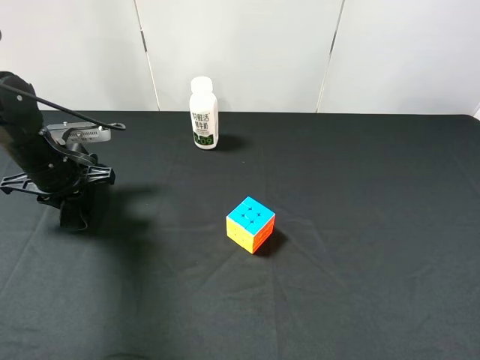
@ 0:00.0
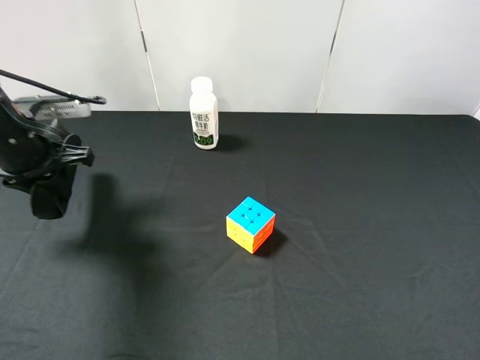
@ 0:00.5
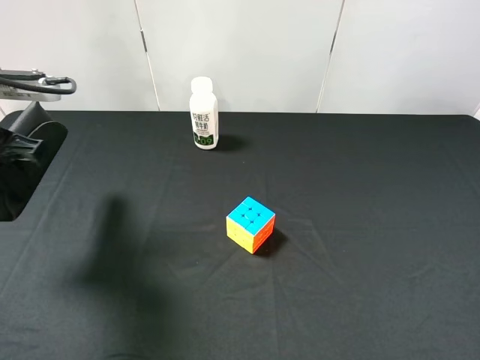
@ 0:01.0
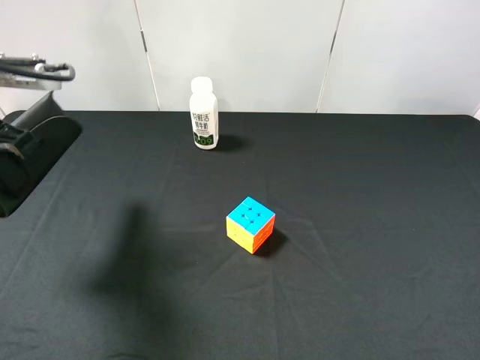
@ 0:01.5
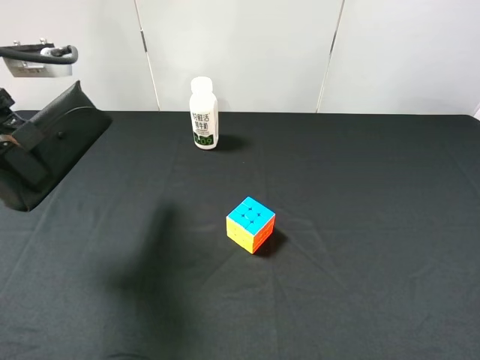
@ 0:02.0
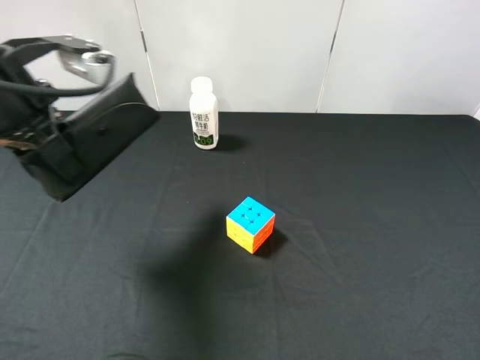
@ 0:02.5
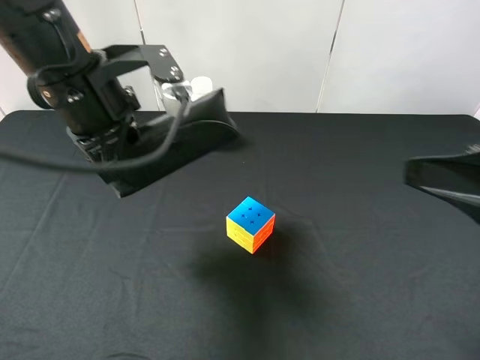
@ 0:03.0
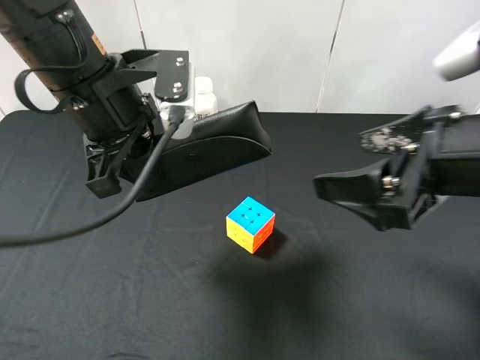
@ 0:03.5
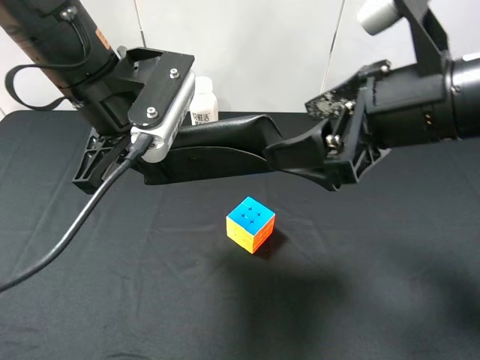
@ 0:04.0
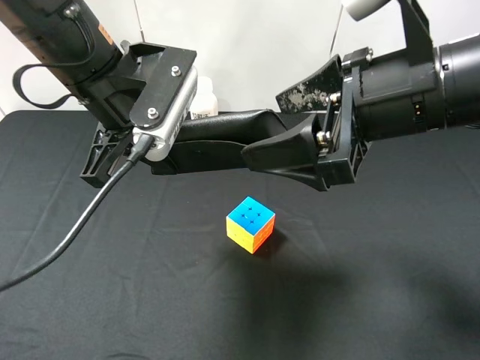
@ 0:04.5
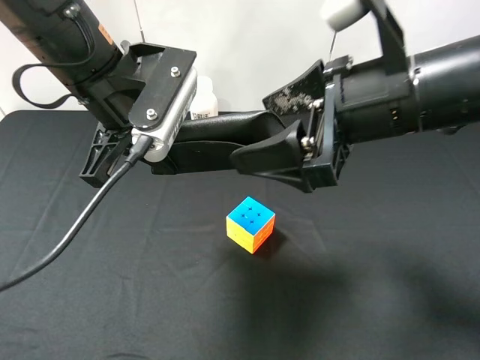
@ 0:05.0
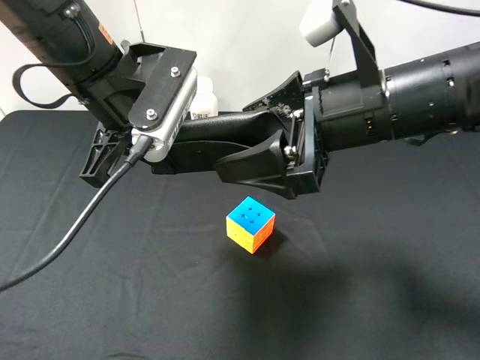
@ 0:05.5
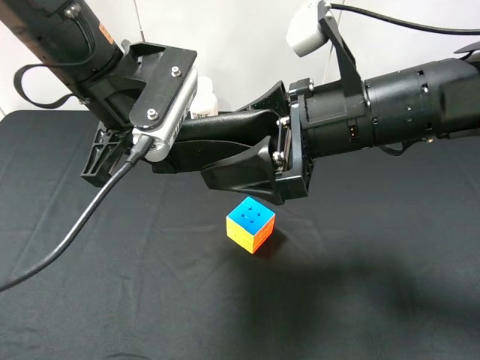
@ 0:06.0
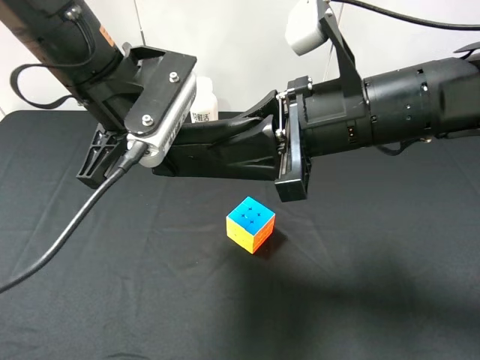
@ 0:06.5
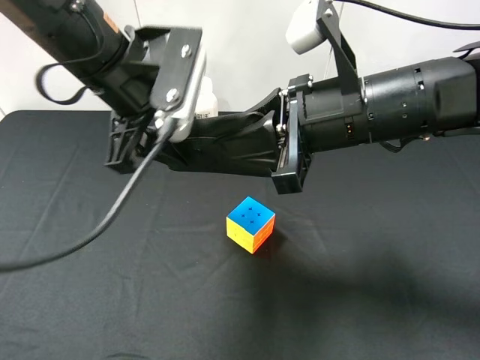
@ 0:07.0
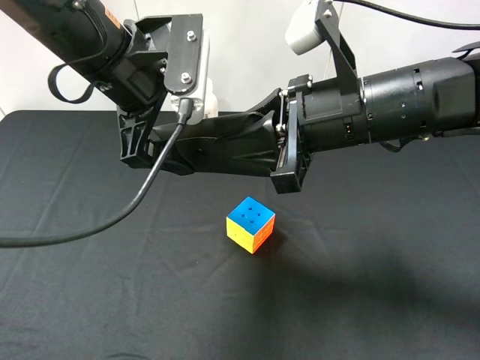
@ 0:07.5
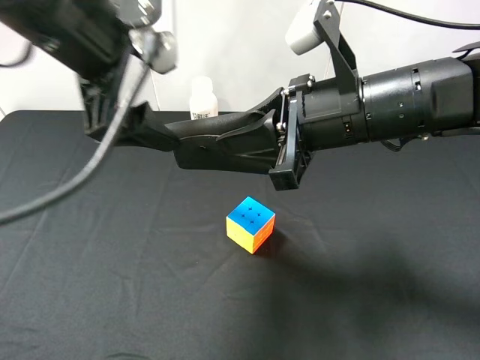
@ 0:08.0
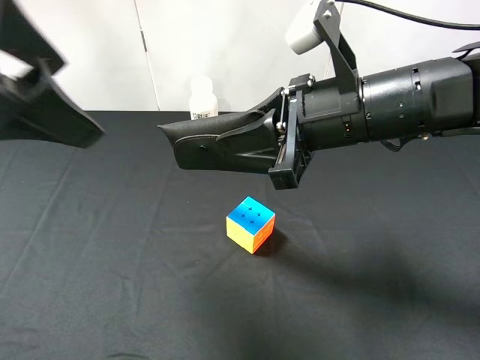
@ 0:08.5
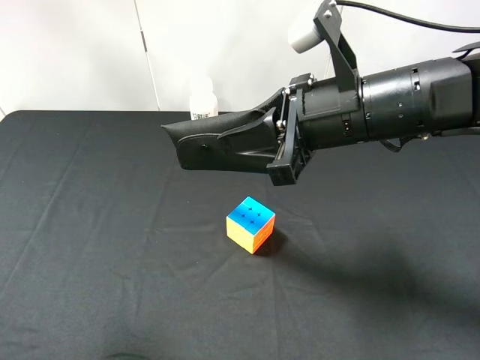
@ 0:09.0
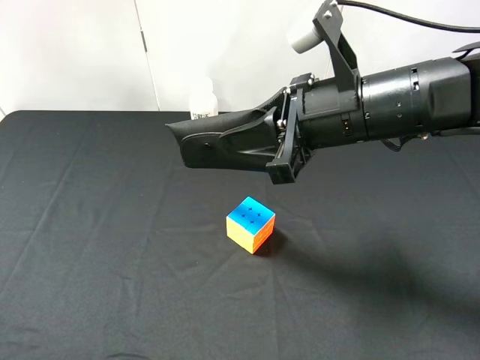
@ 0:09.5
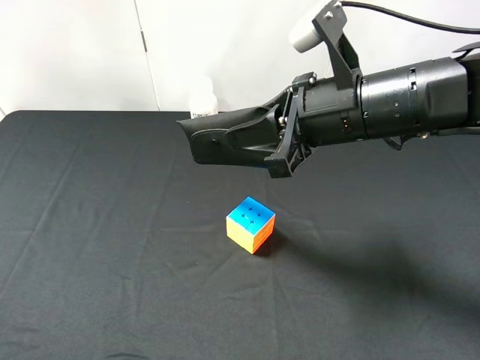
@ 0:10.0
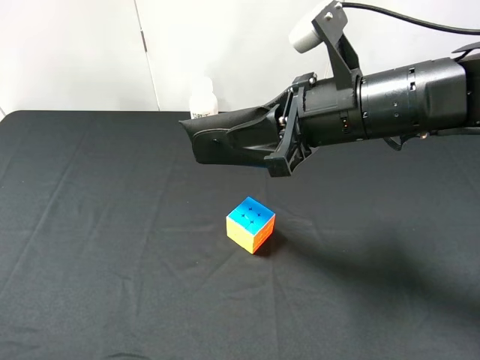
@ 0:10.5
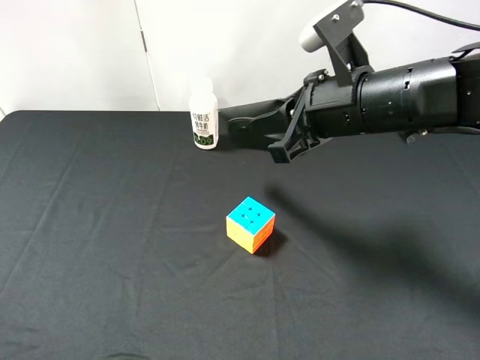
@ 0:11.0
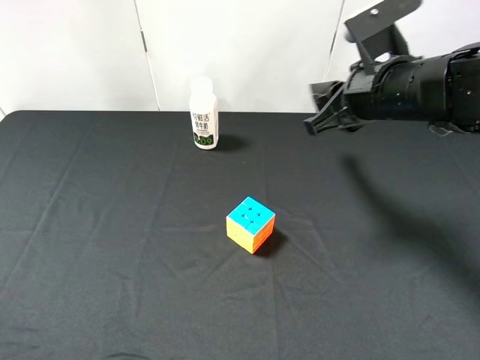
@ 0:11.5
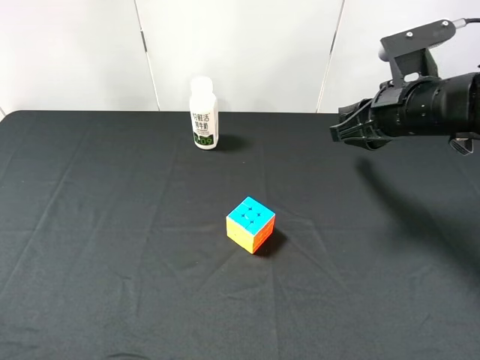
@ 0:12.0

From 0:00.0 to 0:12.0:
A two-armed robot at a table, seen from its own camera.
Task of the whole recording: use the left gripper to pick up the item and transfer it from the left gripper to the right gripper.
From 0:00.0 to 0:02.0: The left gripper heads upward and backward, covering roughly 15 cm.
From 0:02.0 to 0:04.0: The right gripper heads forward and to the left, covering approximately 25 cm; the left gripper shifts some 15 cm to the right.
From 0:04.0 to 0:06.0: The right gripper shifts by some 5 cm.
From 0:06.0 to 0:08.0: The left gripper shifts about 5 cm upward, and opens. The right gripper closes.
From 0:08.0 to 0:10.0: The left gripper moves backward and to the left, roughly 30 cm.
From 0:10.0 to 0:12.0: The right gripper travels to the right by some 10 cm.

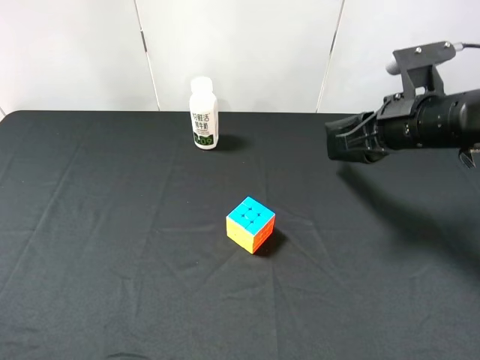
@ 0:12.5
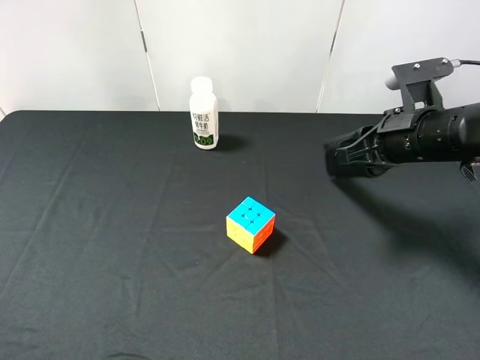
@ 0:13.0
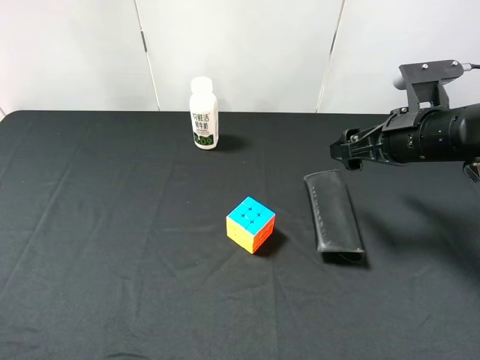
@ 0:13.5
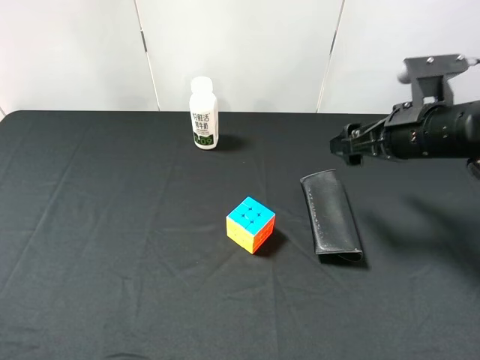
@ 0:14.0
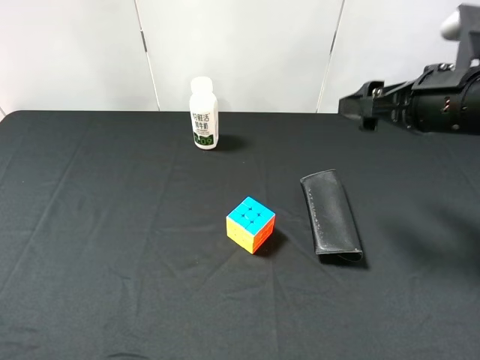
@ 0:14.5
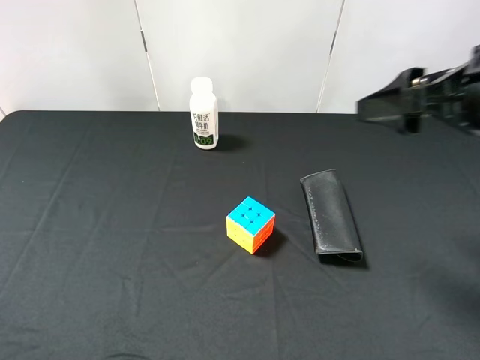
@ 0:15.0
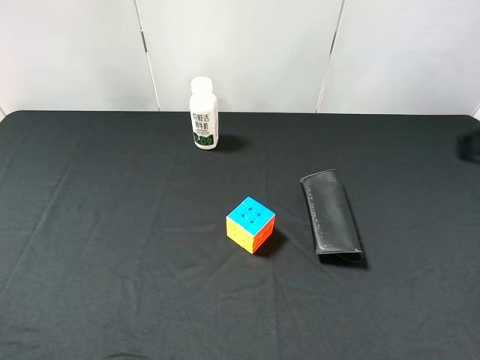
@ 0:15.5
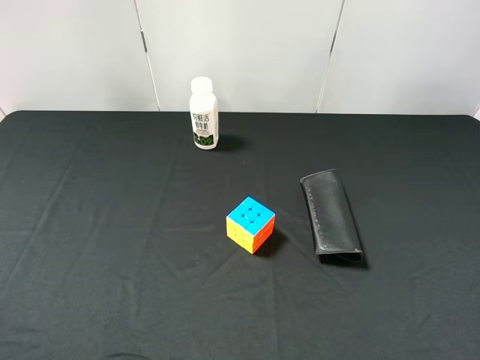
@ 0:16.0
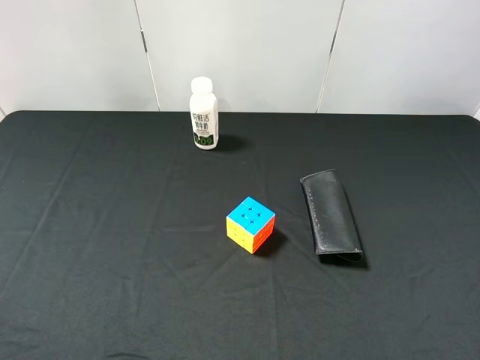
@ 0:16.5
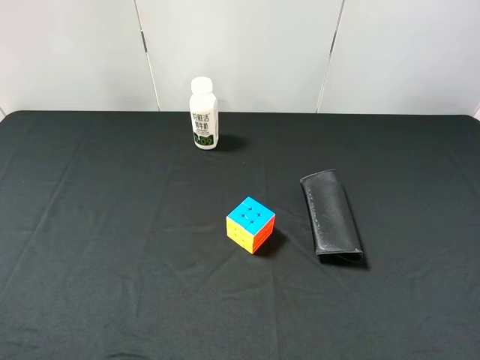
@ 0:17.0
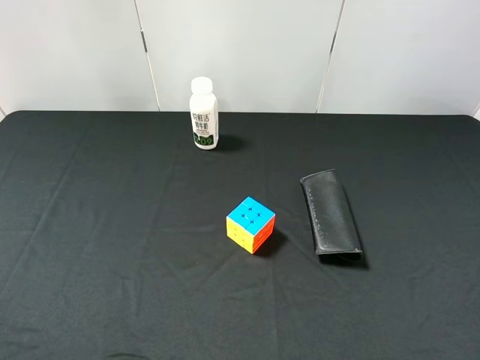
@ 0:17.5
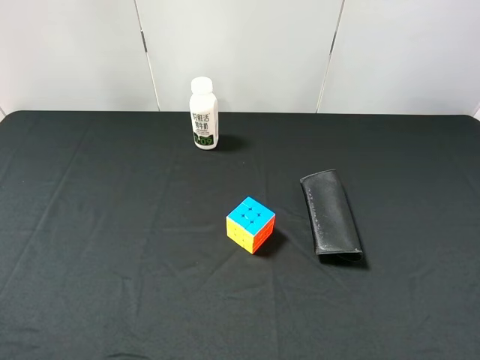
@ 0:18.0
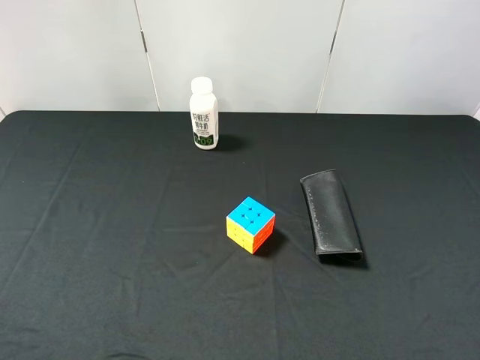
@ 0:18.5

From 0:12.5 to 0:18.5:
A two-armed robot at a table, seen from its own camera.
Task of the whole recording: use the left gripper to pick up the item and transfer it from the left gripper to the right gripper.
From 0:12.5 to 0:14.5: The right gripper travels upward by about 5 cm, and opens up.
From 0:14.5 to 0:16.5: The right gripper is displaced backward by approximately 25 cm.

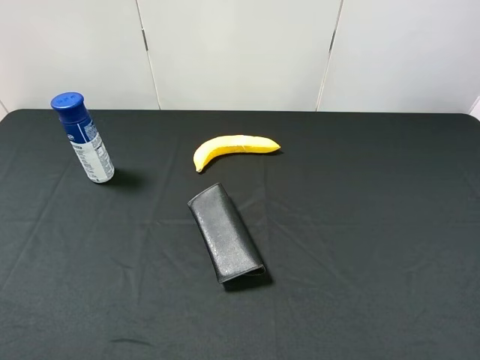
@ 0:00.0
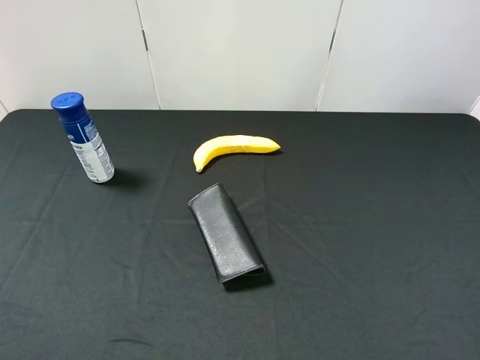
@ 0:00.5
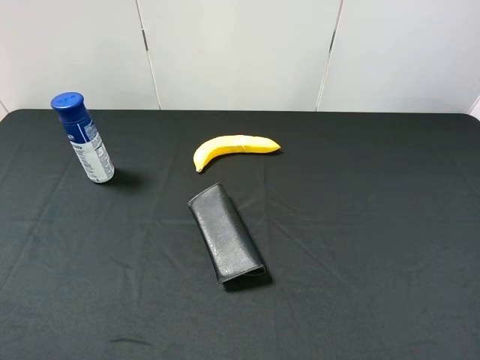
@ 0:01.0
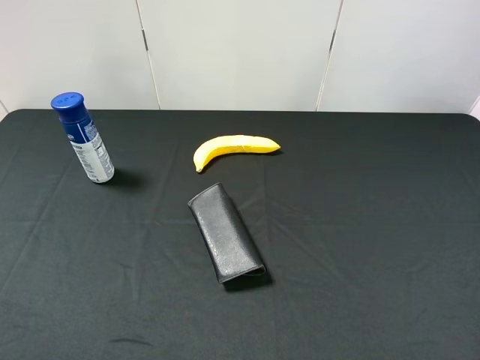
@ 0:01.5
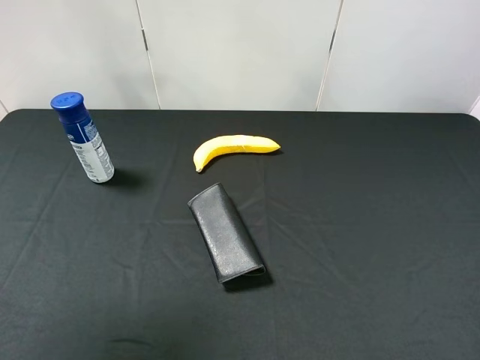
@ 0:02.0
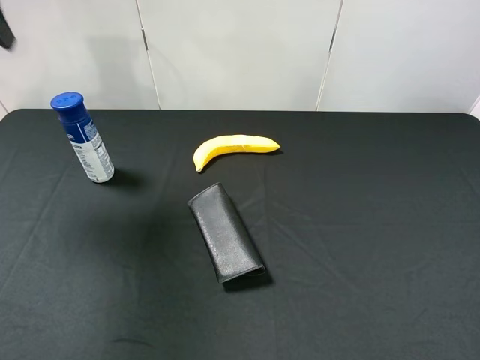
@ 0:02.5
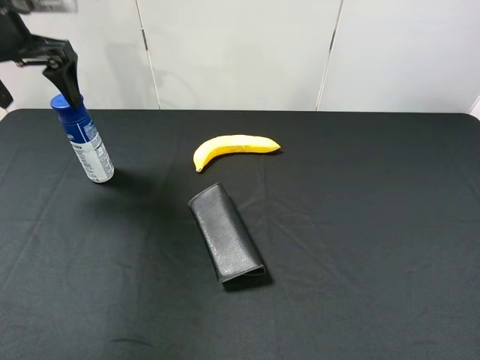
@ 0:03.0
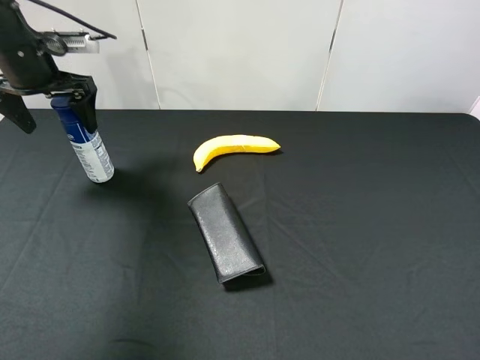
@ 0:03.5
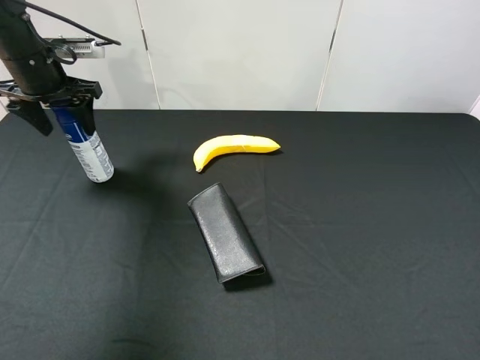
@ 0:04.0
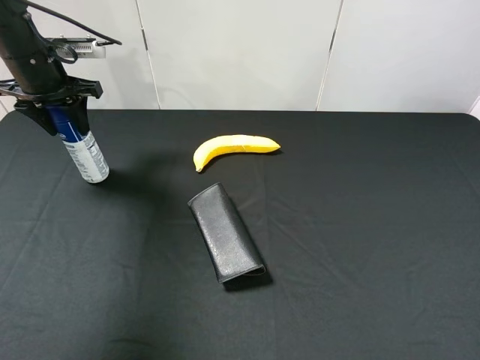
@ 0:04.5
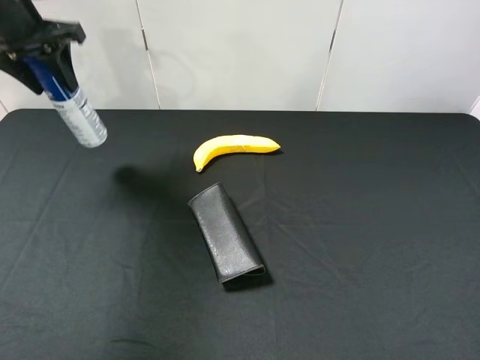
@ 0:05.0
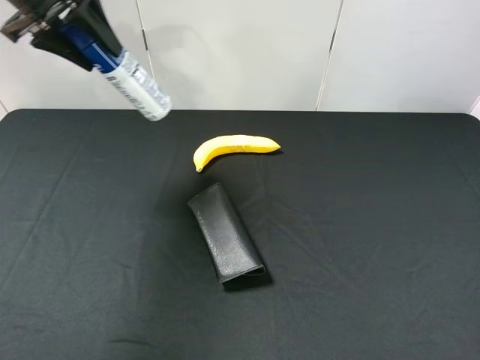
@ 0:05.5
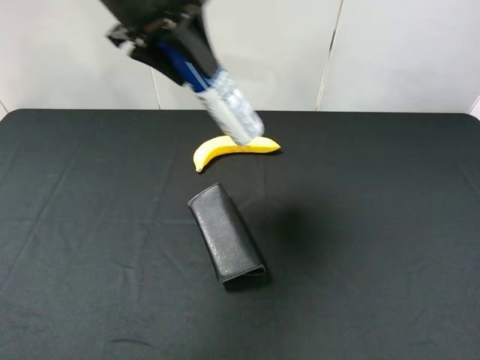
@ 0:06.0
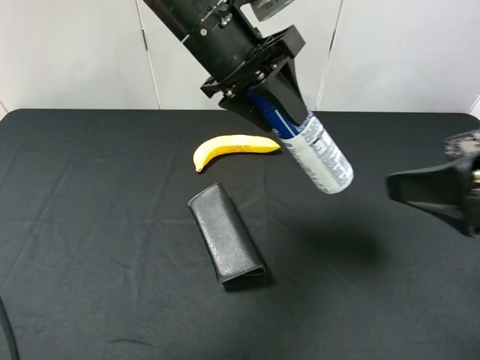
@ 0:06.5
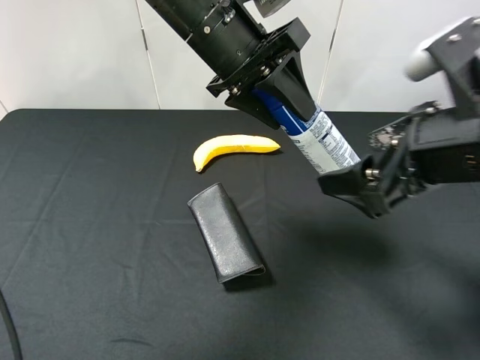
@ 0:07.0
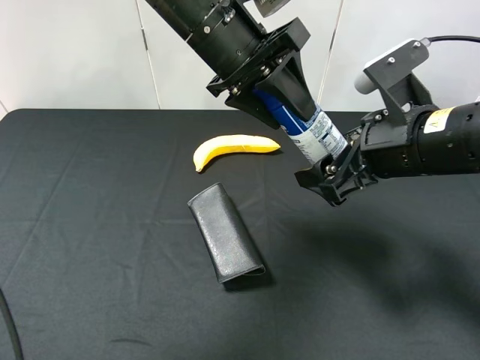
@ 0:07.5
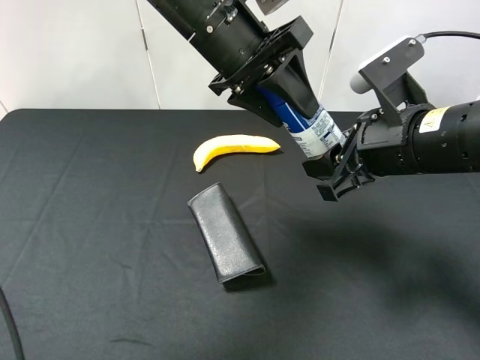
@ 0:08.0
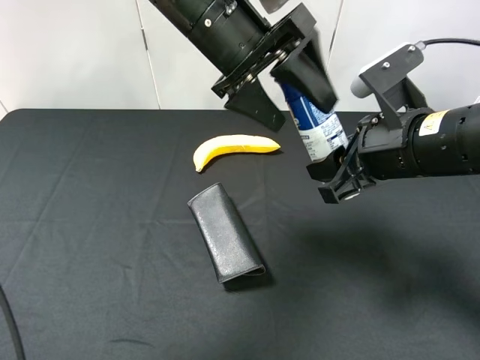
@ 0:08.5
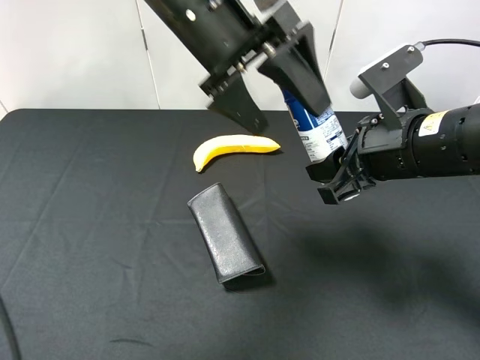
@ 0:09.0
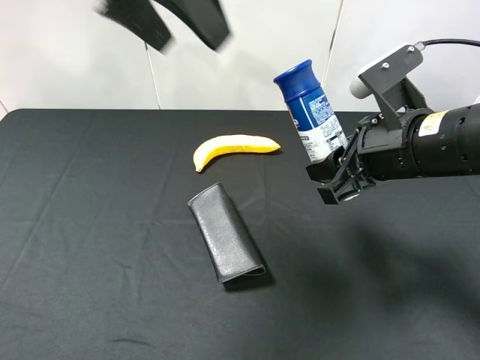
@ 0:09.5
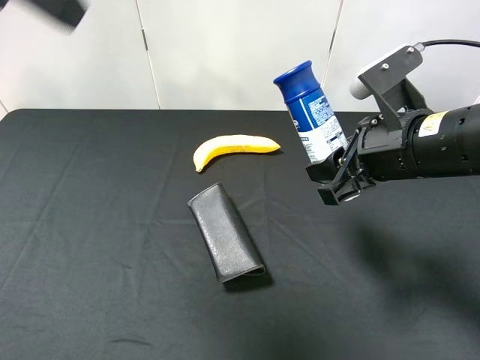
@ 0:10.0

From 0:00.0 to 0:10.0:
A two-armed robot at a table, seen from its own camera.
Task of the whole recording: use the left gripper to pick up the item and transfer it from the left gripper to the right gripper.
From 0:00.0 to 0:02.0: The left gripper goes some 25 cm forward and upward.
From 0:02.0 to 0:04.0: The left gripper moves forward and downward, roughly 35 cm, and closes up.
From 0:04.0 to 0:06.0: The right gripper heads forward, covering about 5 cm. Meanwhile the left gripper travels to the right and upward by about 20 cm, and closes up.
From 0:06.0 to 0:08.0: The left gripper moves to the right, approximately 10 cm. Meanwhile the right gripper heads forward, to the left and downward, covering about 20 cm, and closes up.
From 0:08.0 to 0:10.0: The left gripper shifts about 25 cm to the left, upward and backward, and opens up.
